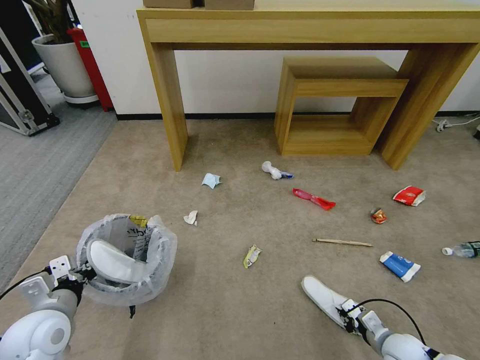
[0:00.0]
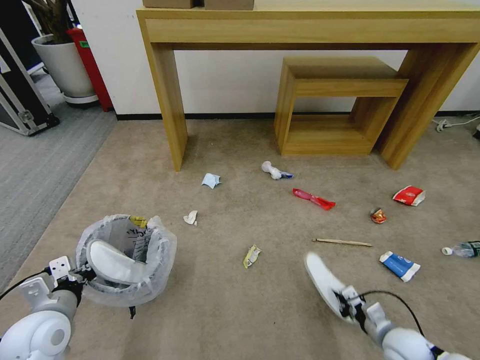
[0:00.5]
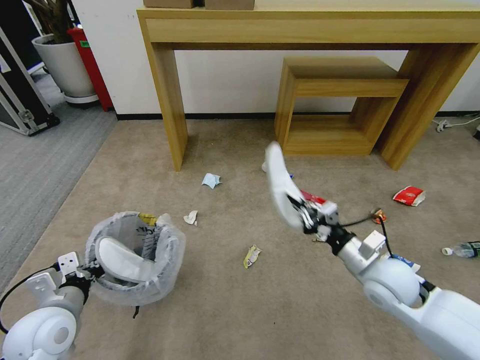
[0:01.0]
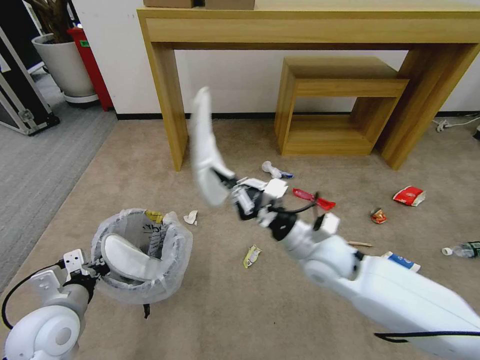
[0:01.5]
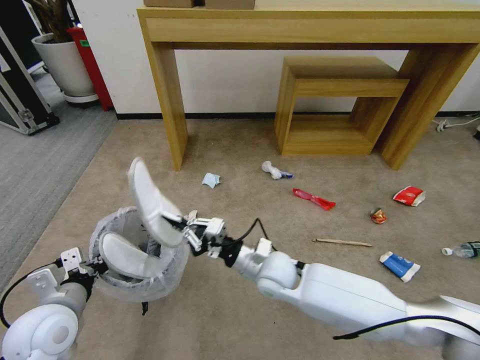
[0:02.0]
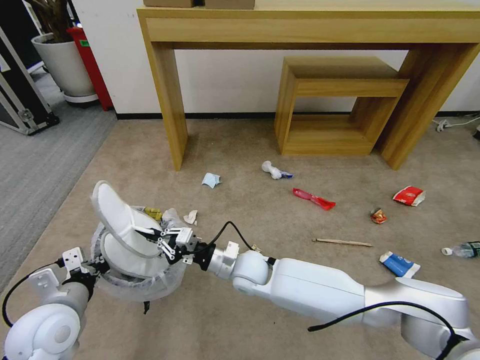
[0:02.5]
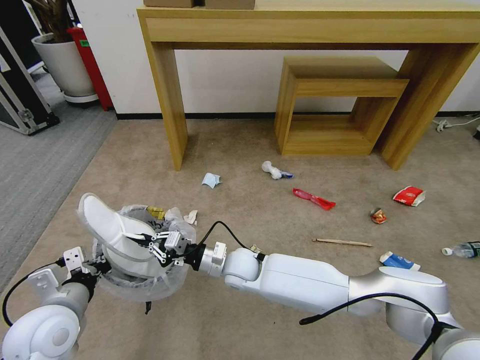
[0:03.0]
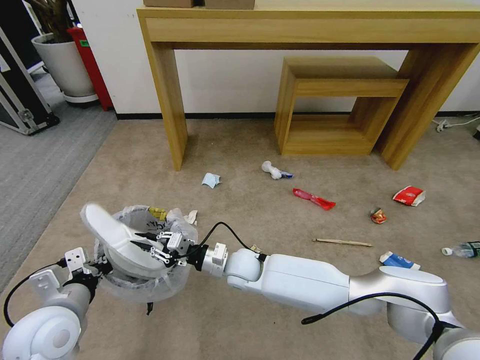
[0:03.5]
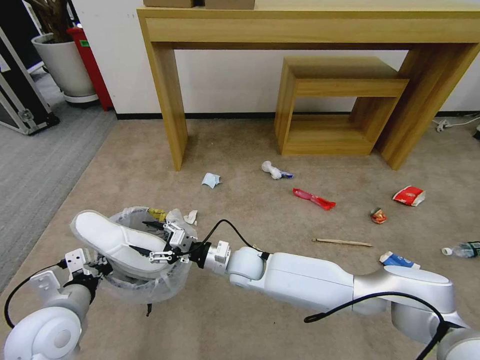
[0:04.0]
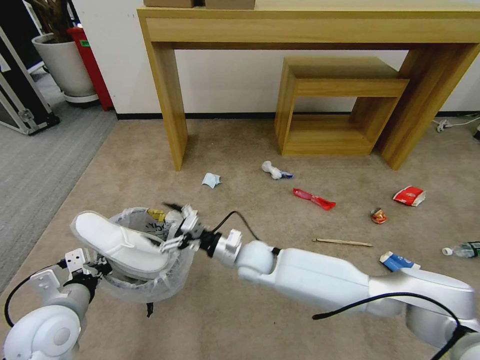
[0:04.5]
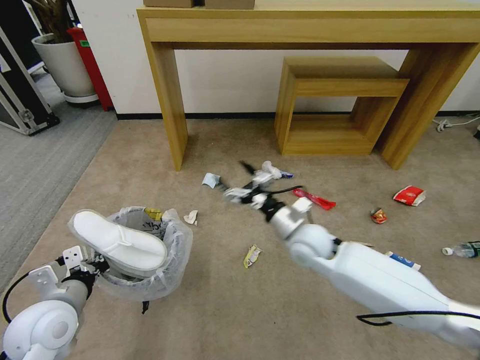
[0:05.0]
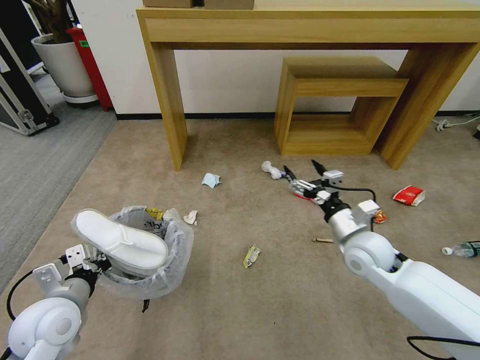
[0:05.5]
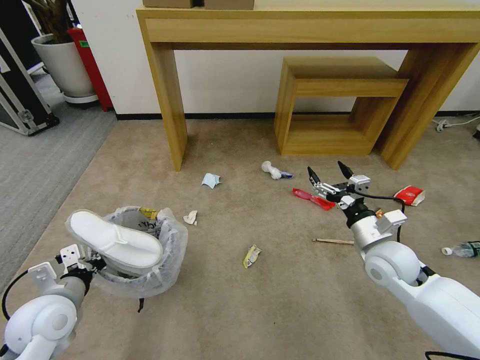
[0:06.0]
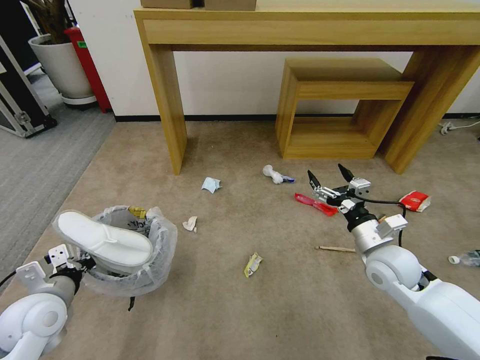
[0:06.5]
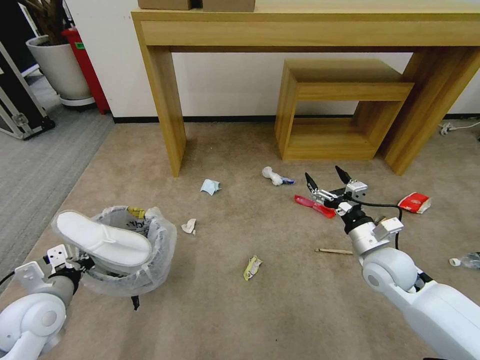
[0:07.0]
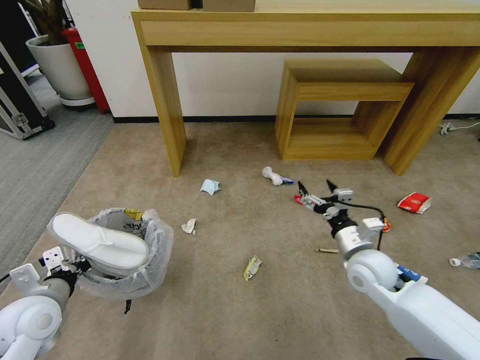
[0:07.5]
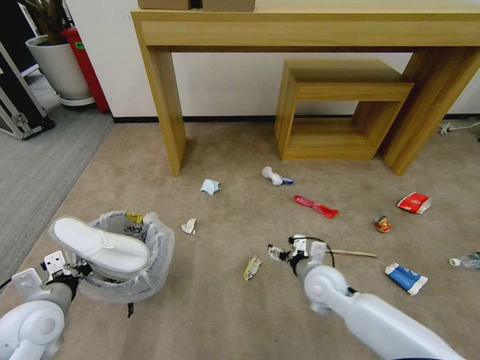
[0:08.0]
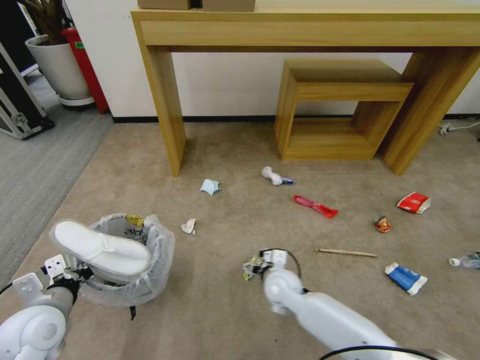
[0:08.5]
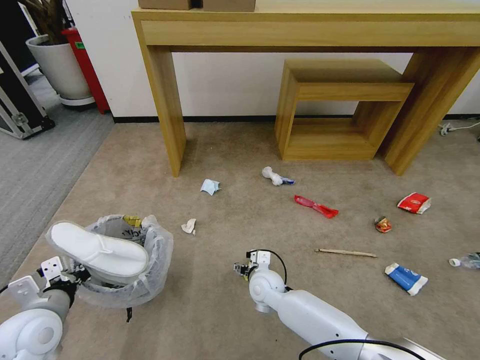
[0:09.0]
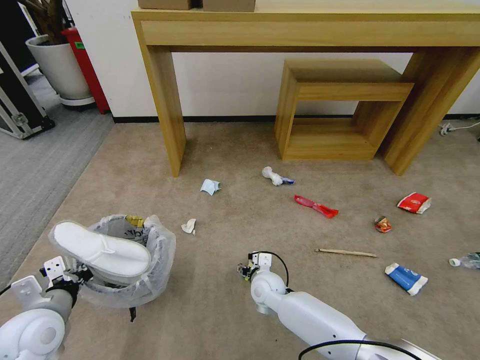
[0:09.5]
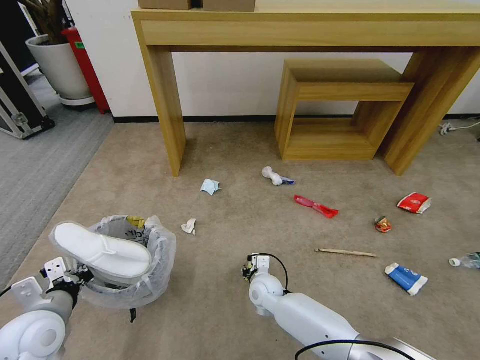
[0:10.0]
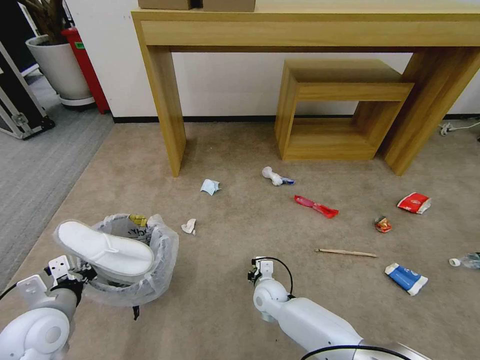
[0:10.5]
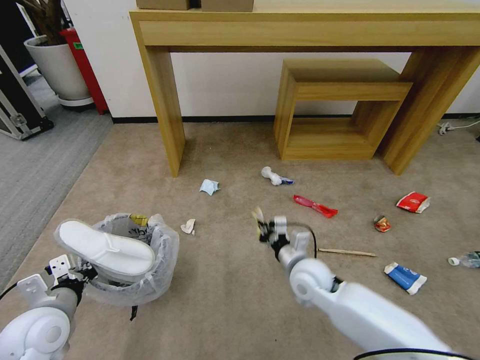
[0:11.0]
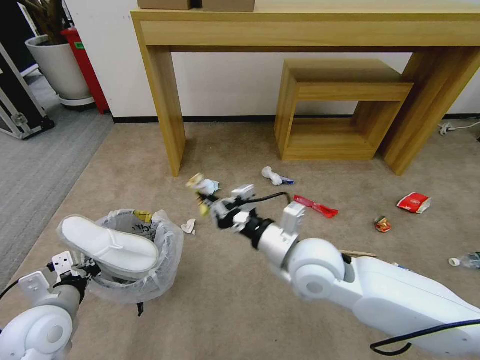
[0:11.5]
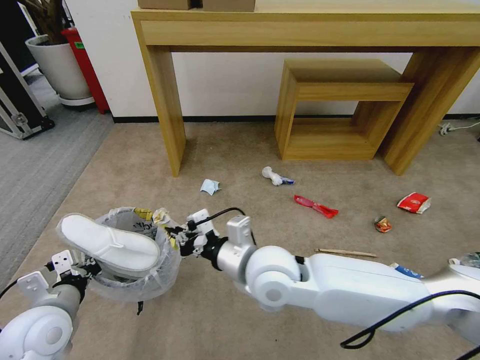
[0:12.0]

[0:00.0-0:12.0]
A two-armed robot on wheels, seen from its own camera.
Task of the whole recording: Pick up the trash bin and place the garbage on the floor into it.
0:00.0 to 0:02.0: The right gripper goes approximately 40 cm to the left, upward and forward.
0:02.0 to 0:04.0: The right gripper heads to the left, covering roughly 5 cm, and opens up.
0:04.0 to 0:06.0: The right gripper heads to the right, covering roughly 30 cm.
0:06.0 to 0:08.0: The right gripper moves to the left and downward, roughly 15 cm.
0:08.0 to 0:10.0: The right gripper goes about 20 cm to the left and downward, and closes.
0:10.0 to 0:12.0: The right gripper shifts about 30 cm upward, and closes its fingers.

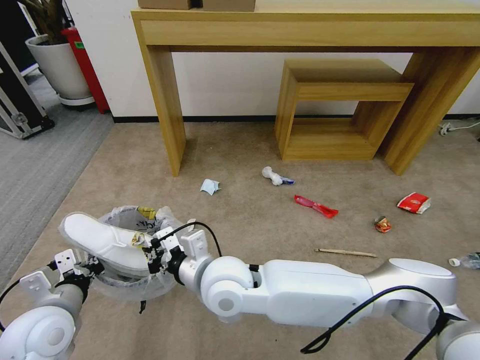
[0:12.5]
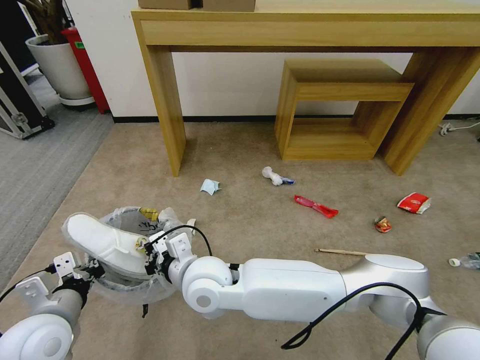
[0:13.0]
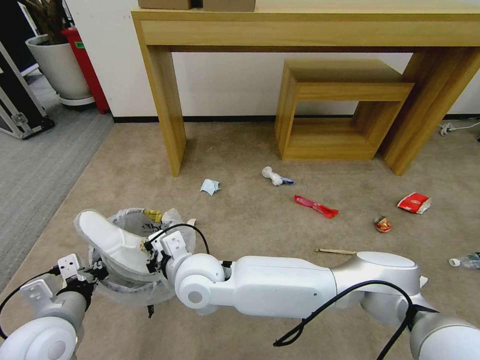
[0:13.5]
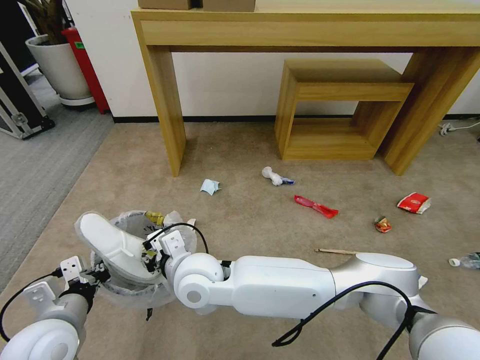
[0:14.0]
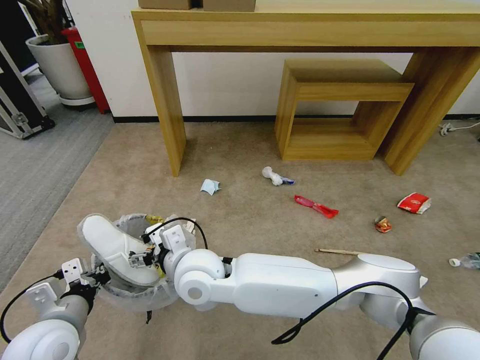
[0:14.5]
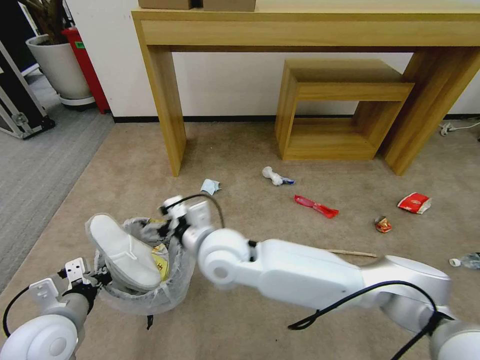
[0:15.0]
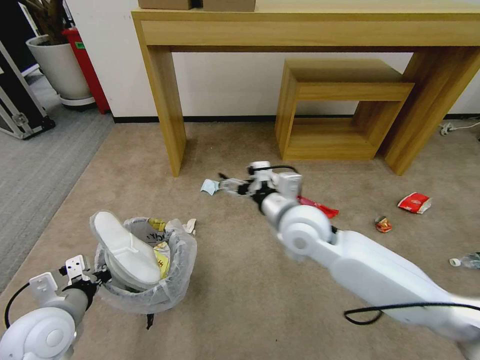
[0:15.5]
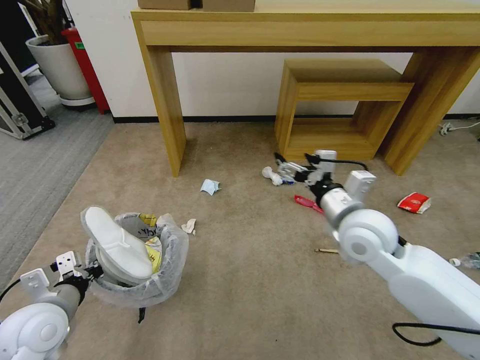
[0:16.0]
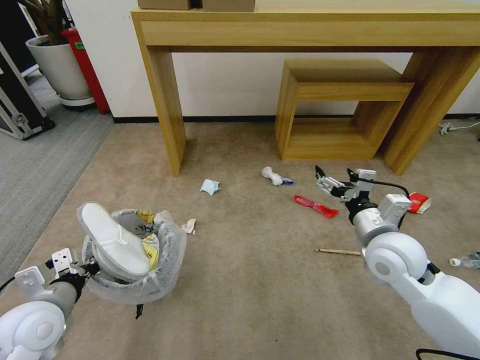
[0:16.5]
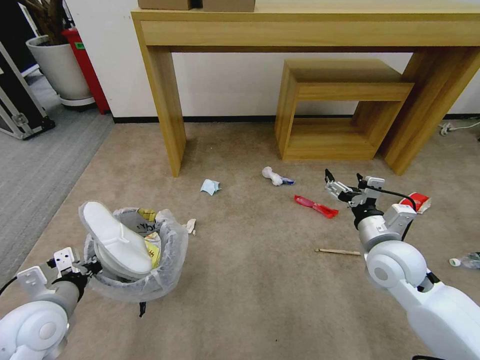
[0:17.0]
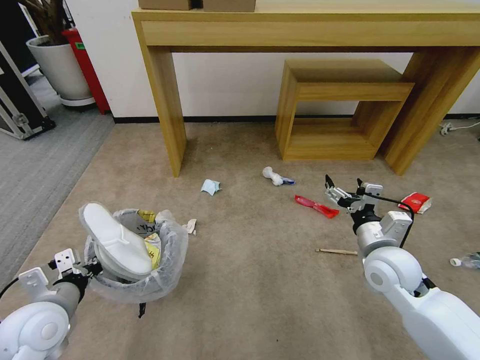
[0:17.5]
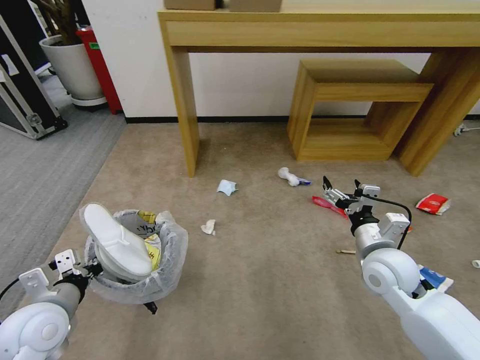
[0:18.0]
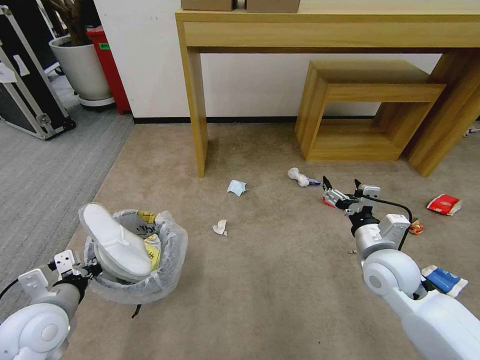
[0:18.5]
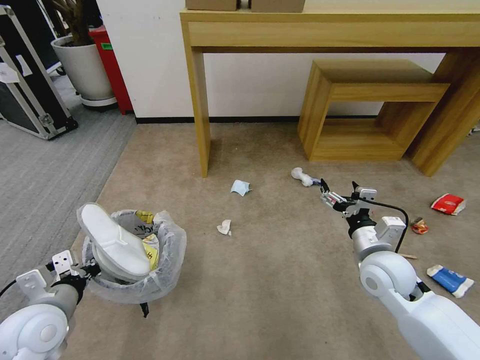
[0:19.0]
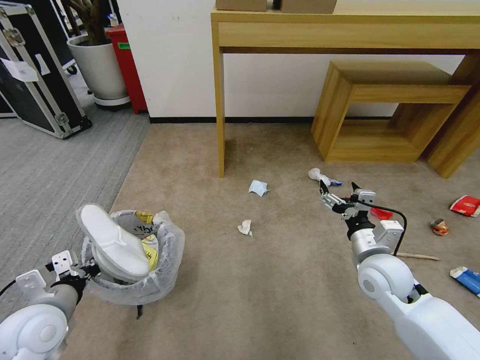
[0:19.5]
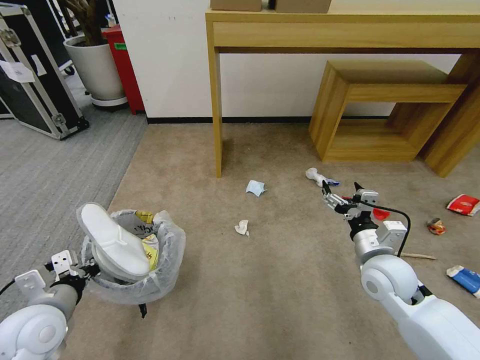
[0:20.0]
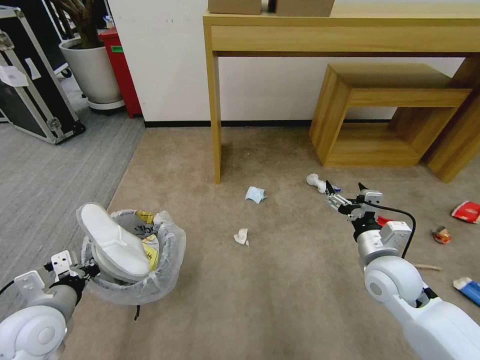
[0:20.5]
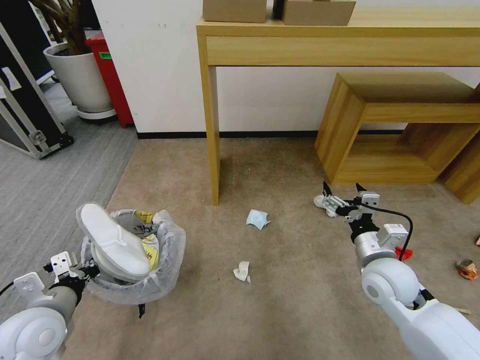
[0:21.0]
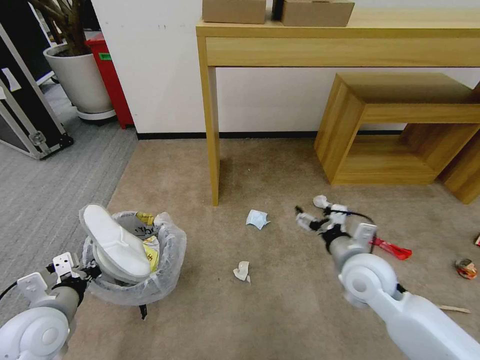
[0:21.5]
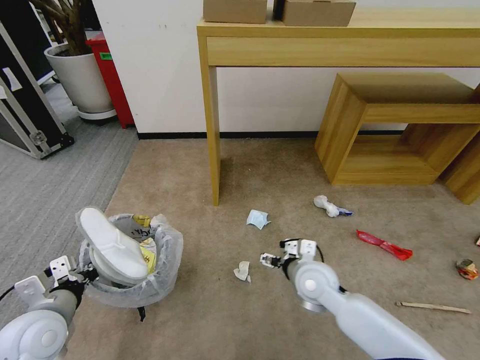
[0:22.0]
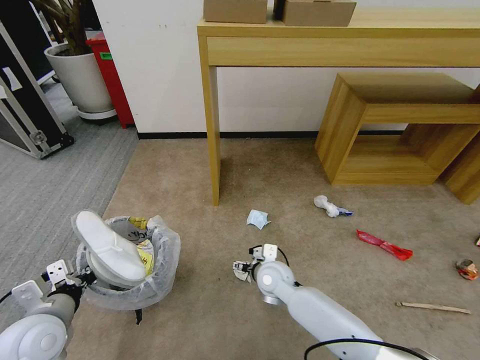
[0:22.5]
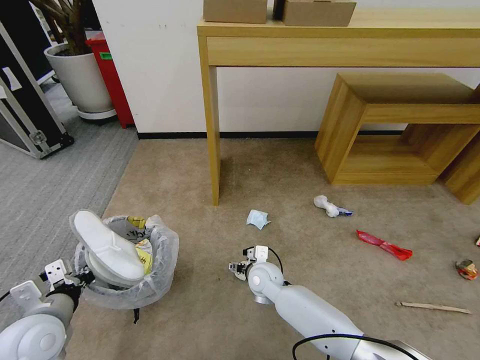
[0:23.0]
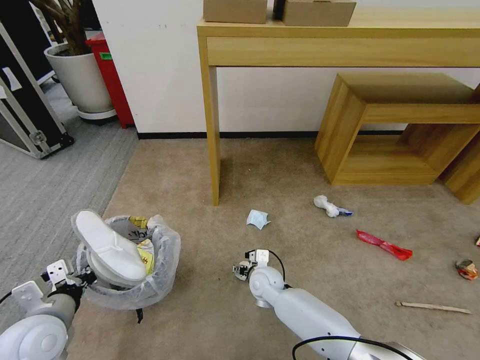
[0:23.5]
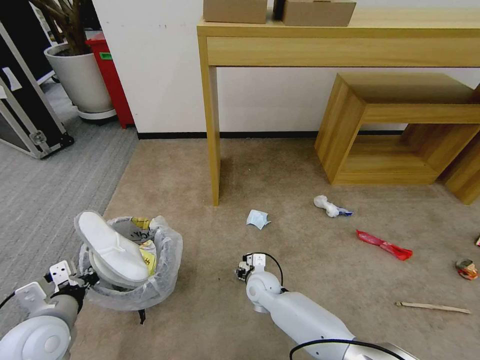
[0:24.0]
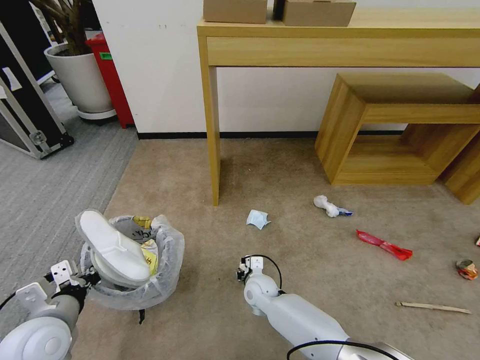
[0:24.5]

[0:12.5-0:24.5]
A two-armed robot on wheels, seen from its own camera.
Task of the whole recording: Pick up the trash bin and place the garbage on the floor into it.
0:12.5 to 0:14.5: The right gripper travels to the left by roughly 5 cm, and opens.
0:14.5 to 0:16.5: The right gripper is displaced to the right by approximately 35 cm.
0:16.5 to 0:18.5: The right gripper heads downward, covering some 5 cm.
0:20.5 to 0:22.5: The right gripper is displaced to the left and downward by roughly 25 cm.
0:22.5 to 0:24.5: The right gripper heads downward, covering about 10 cm, and closes up.

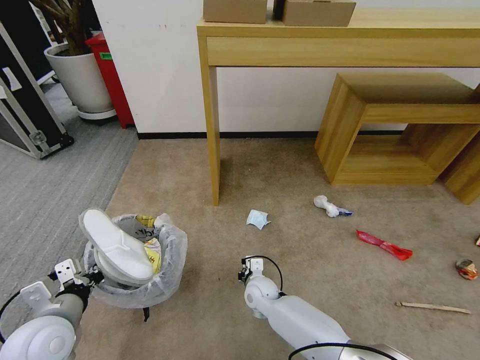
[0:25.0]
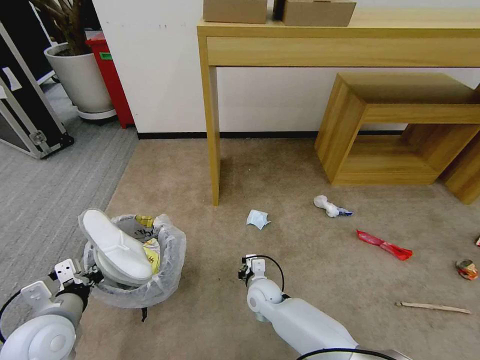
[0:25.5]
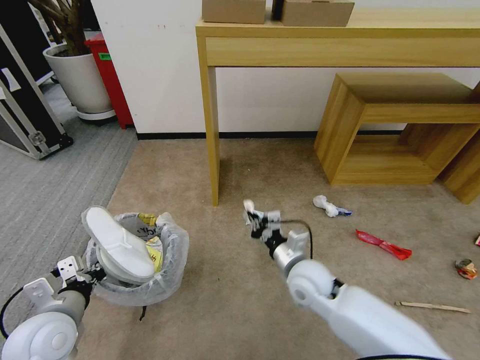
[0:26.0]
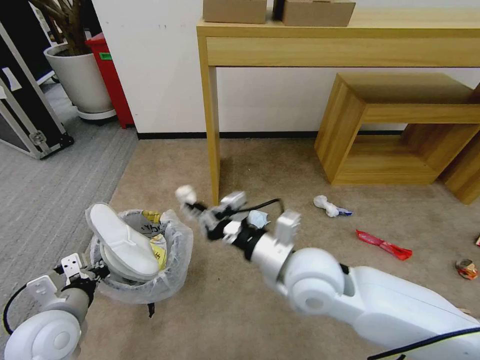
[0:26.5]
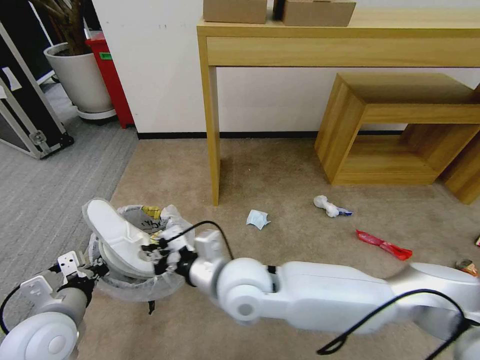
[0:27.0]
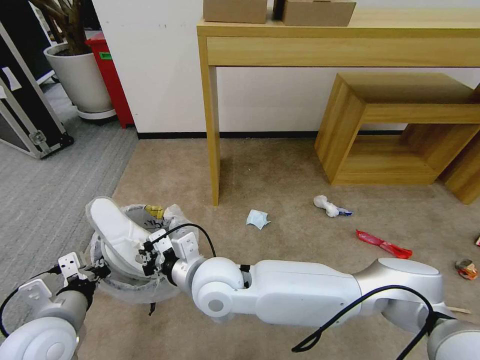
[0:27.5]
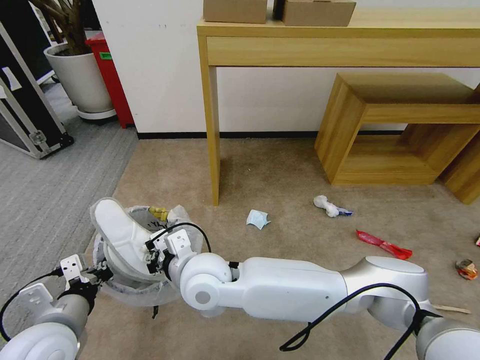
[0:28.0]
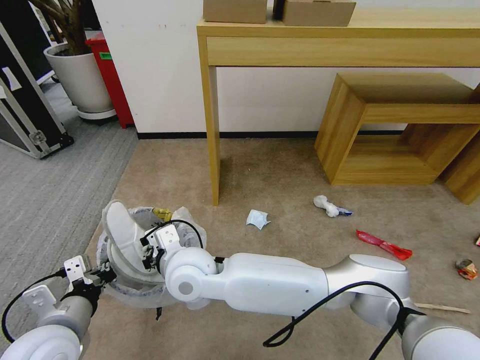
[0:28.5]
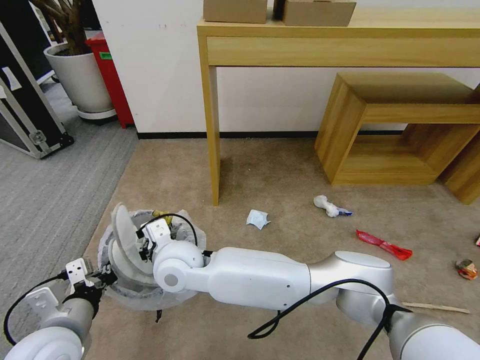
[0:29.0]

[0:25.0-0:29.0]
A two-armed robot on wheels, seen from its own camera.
Task of the whole recording: Pick up the trash bin and place the garbage on the floor into it.
0:25.0 to 0:27.0: The right gripper moves upward, some 30 cm.
0:27.0 to 0:29.0: The right gripper travels to the left by approximately 15 cm.
